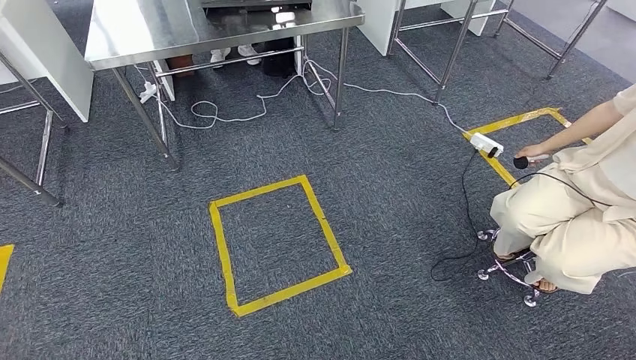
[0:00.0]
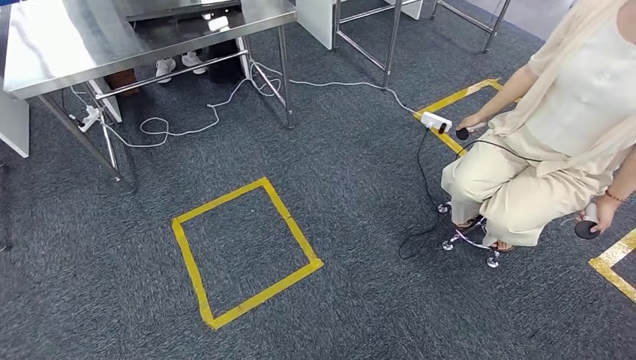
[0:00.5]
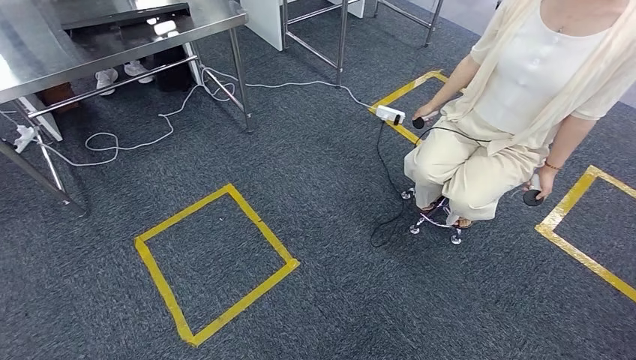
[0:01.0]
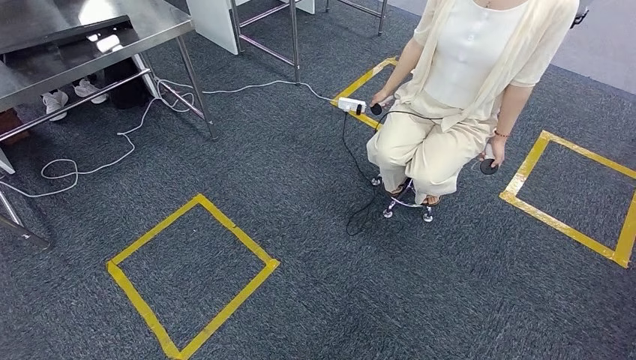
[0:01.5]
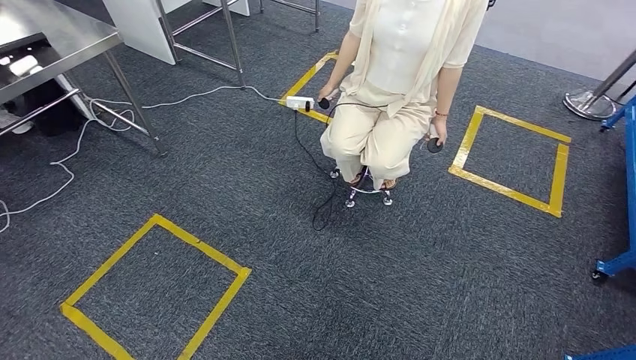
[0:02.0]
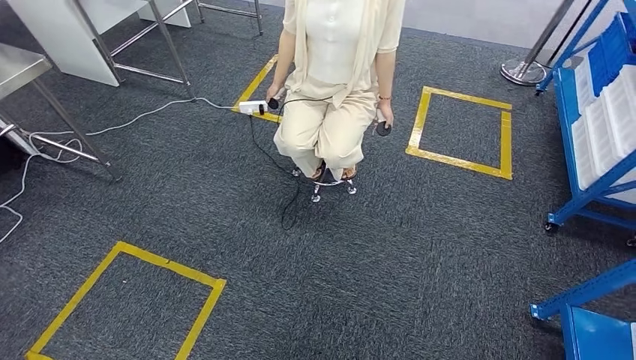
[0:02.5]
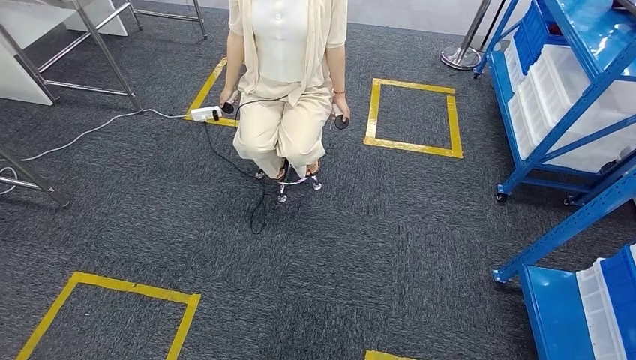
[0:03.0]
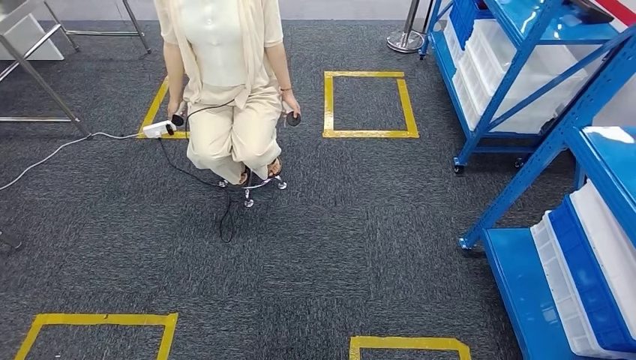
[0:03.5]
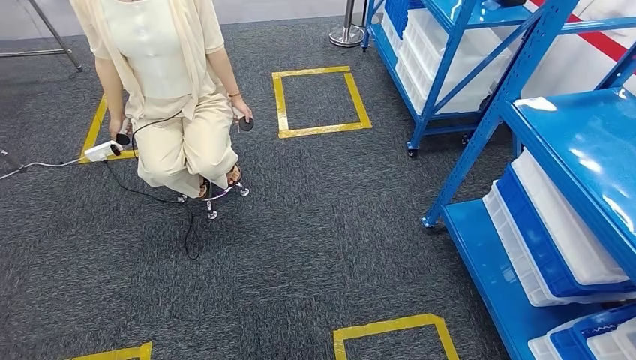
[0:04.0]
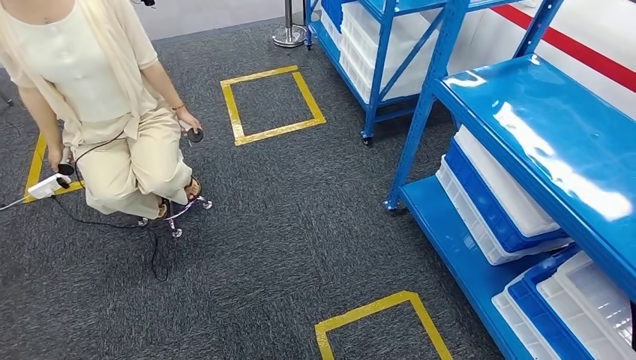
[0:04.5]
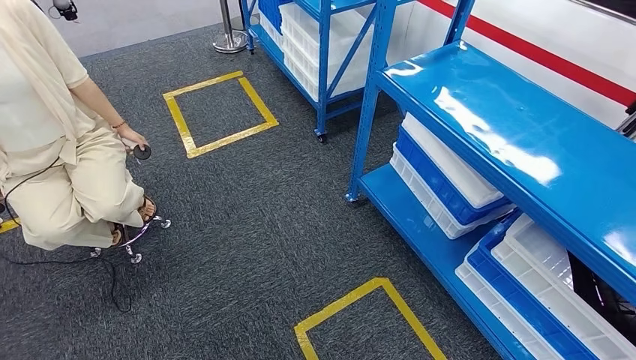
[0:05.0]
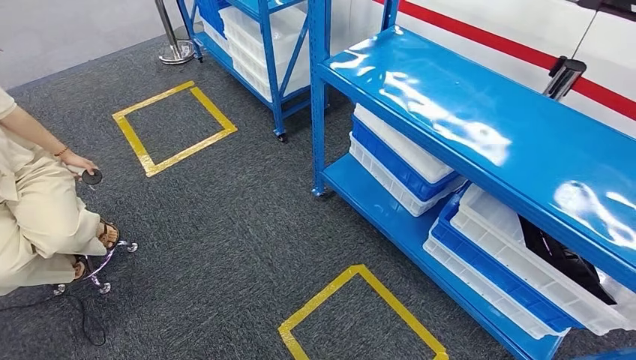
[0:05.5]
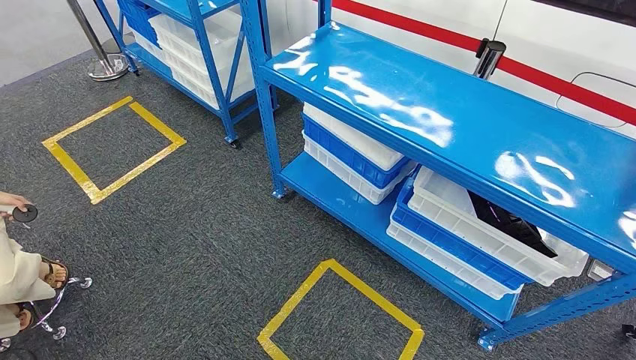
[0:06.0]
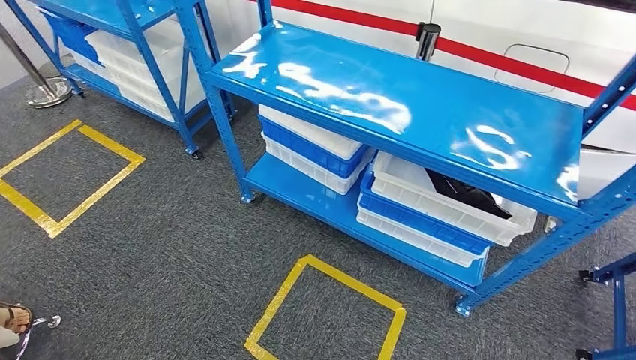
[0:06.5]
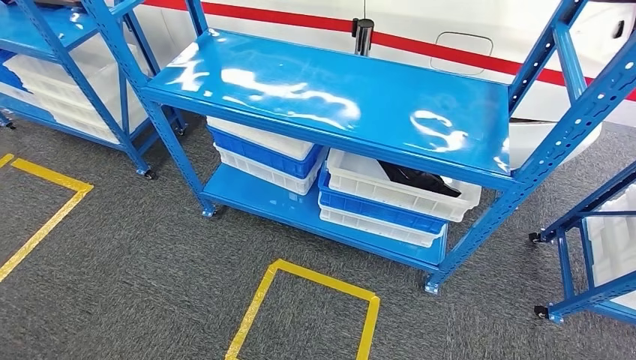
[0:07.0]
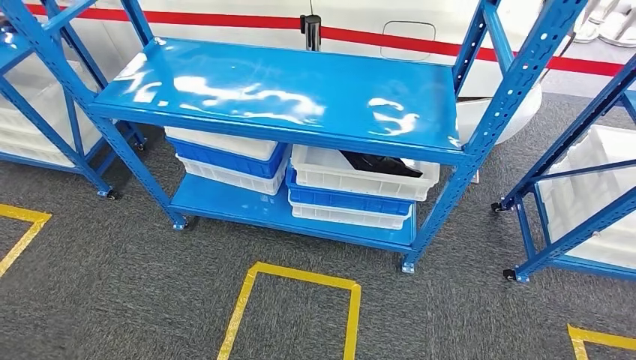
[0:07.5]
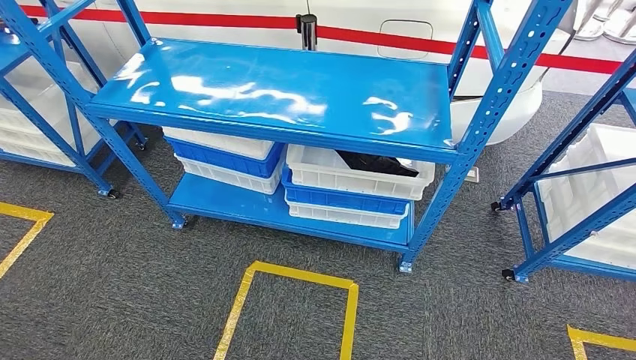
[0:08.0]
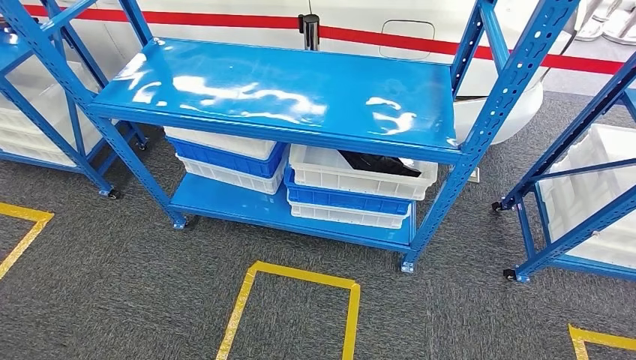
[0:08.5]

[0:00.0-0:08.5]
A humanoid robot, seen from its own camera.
Step, 0:00.0 to 0:08.5: Return to the initial position at the shelf.
